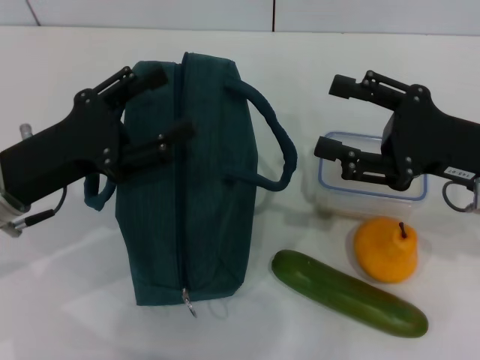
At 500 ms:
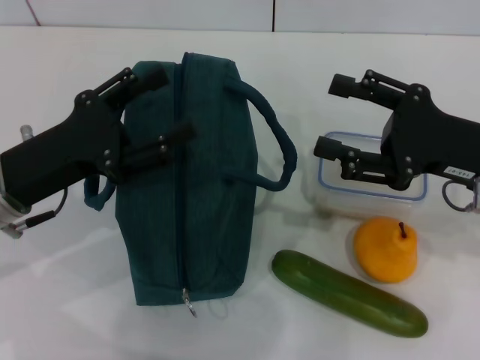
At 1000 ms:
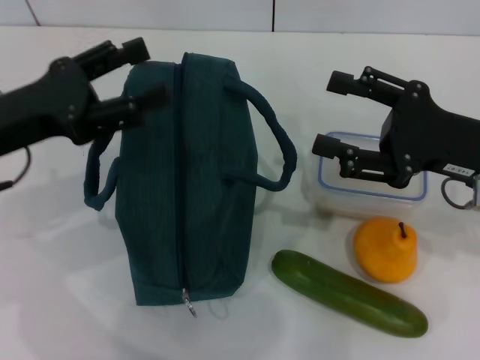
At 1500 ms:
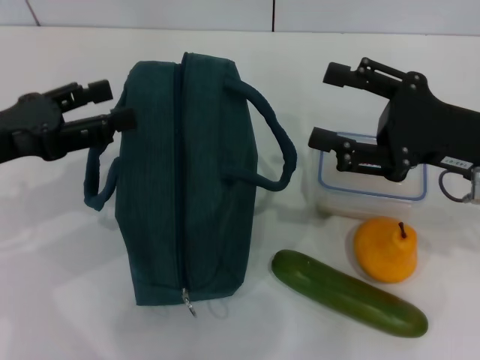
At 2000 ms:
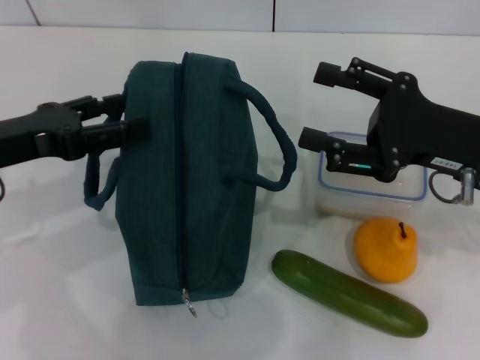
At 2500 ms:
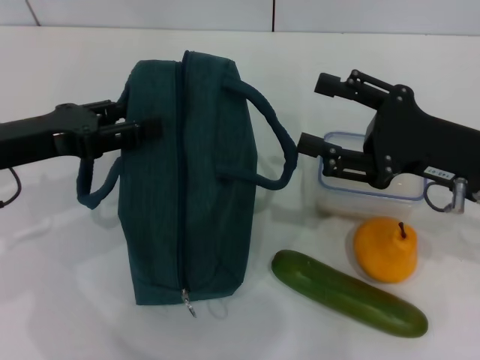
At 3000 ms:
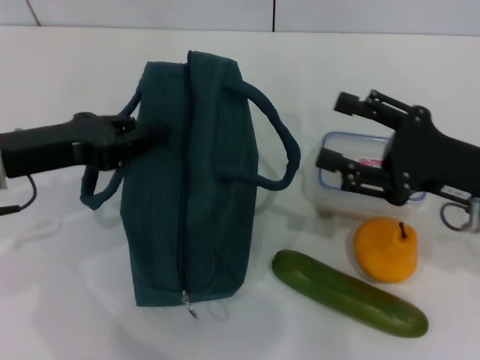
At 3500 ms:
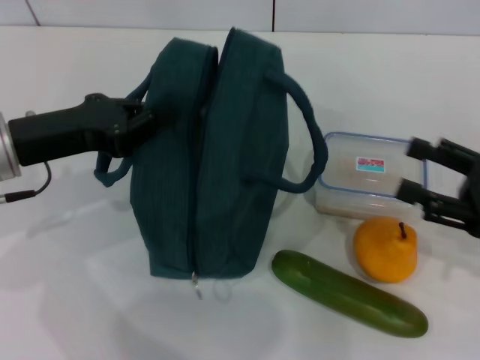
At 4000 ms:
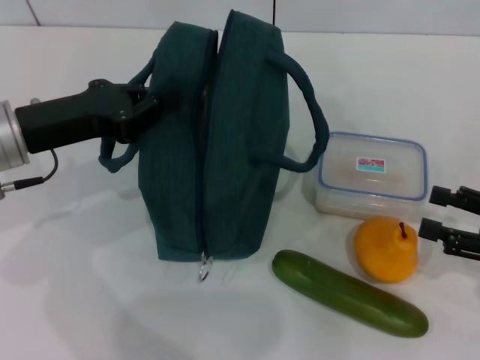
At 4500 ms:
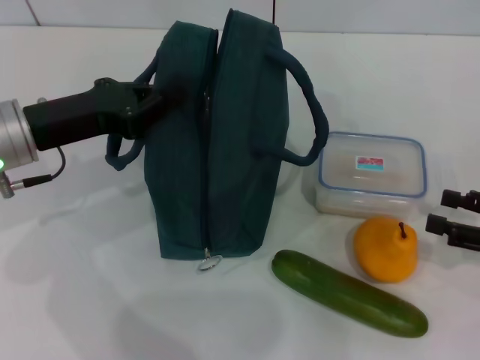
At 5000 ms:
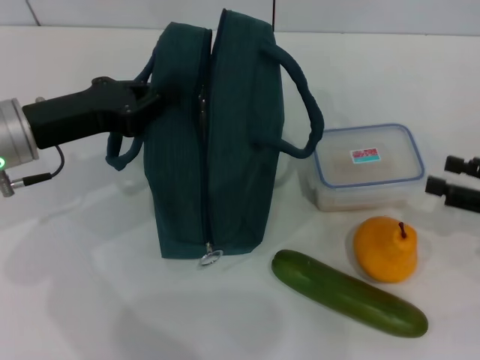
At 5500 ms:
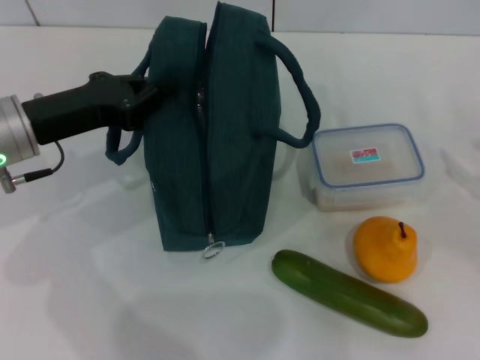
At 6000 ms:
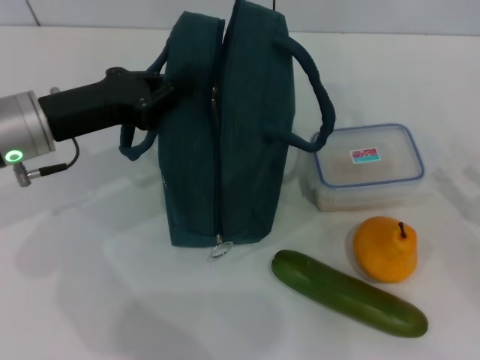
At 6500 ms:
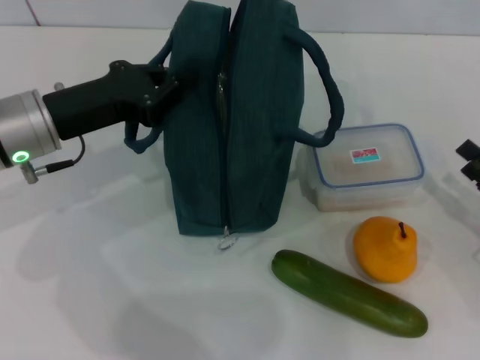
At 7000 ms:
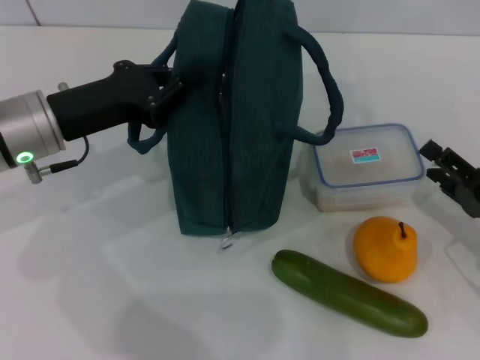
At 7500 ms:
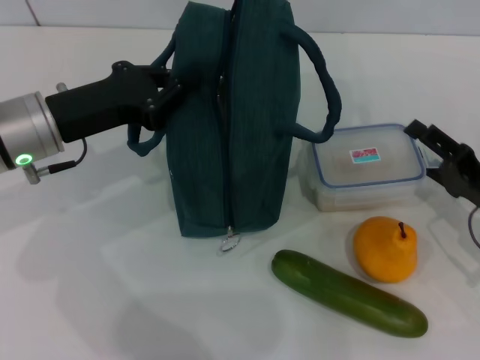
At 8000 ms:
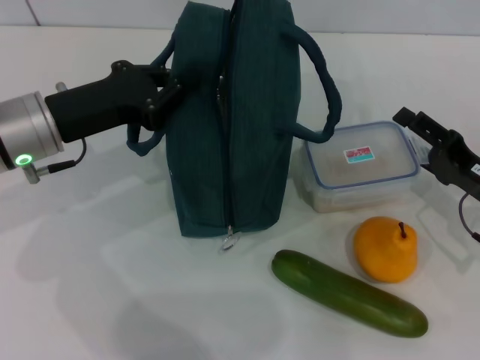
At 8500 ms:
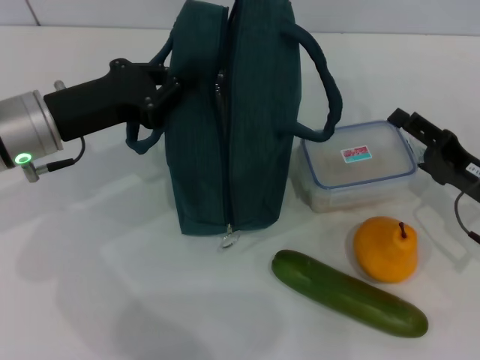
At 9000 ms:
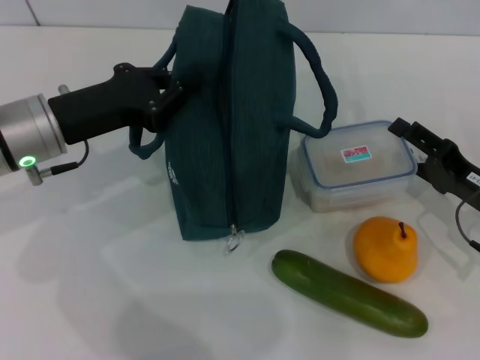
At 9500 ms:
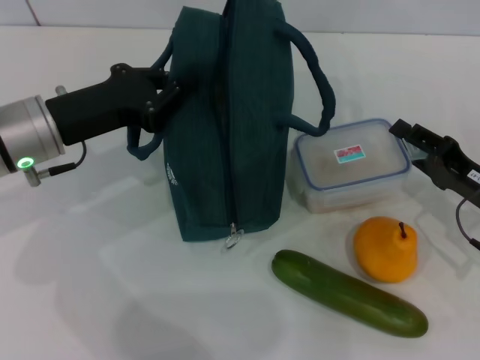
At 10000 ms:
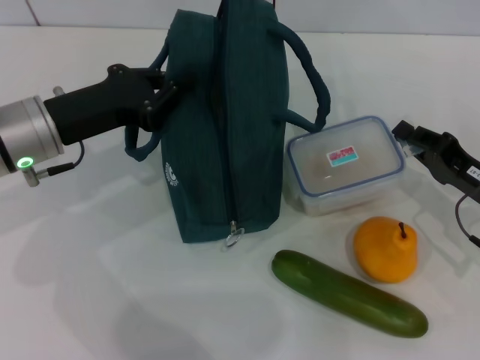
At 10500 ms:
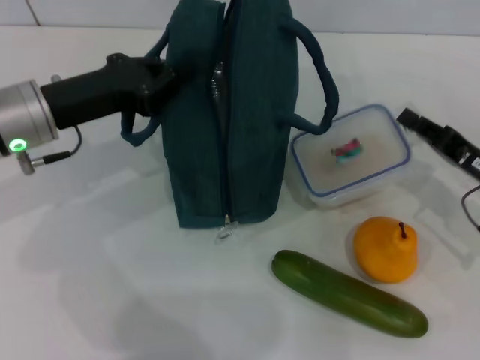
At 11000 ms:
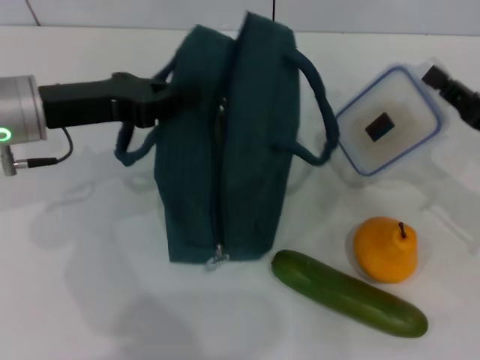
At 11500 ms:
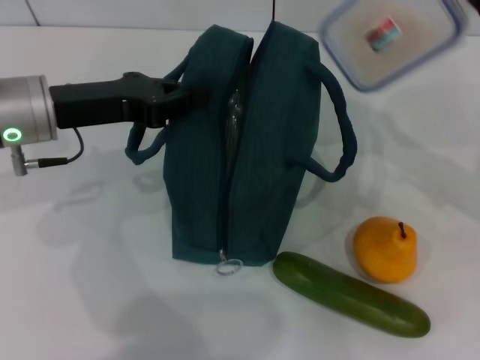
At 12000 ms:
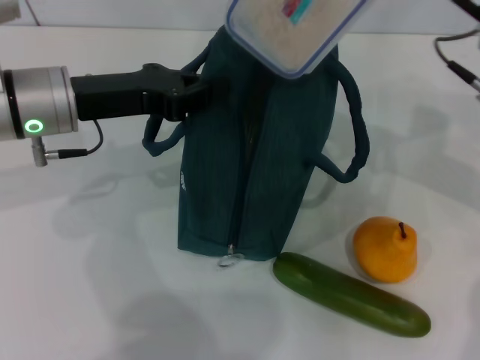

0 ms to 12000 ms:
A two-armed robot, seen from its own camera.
Step, 0 ms to 3000 ms: Hold the lunch bag with your left hand.
Step, 3500 ms to 10000 ms: Pick up the lunch box with your right hand.
0 ms to 2000 ms: The left gripper ends up approximately 5 cm from where it was.
2000 ms to 4000 ms: The right gripper goes some 15 cm to the right, downward and backward. Meanwhile the left gripper shifts by about 5 cm, and closes.
6000 ms to 8000 ms: The right gripper travels to the left and forward by roughly 10 cm.
8000 ms to 10000 ms: The right gripper closes up.
10000 ms to 12000 ms: The right gripper moves upward, forward and to the left, approximately 20 cm.

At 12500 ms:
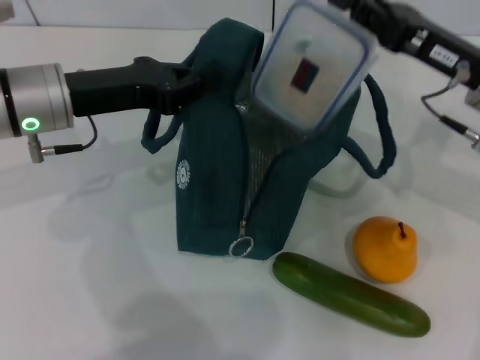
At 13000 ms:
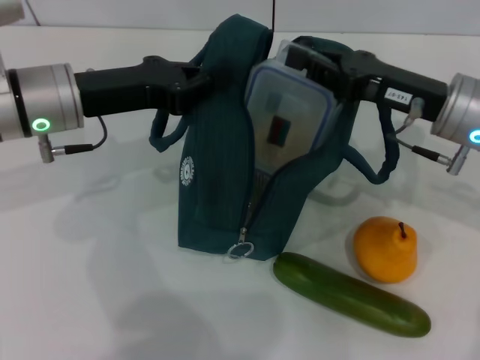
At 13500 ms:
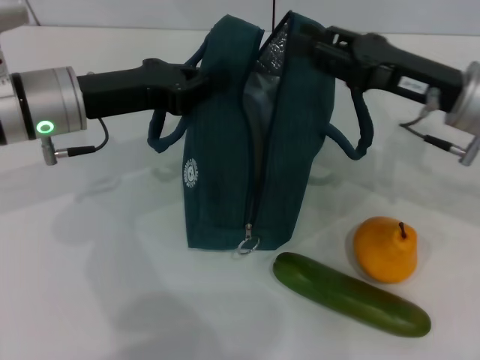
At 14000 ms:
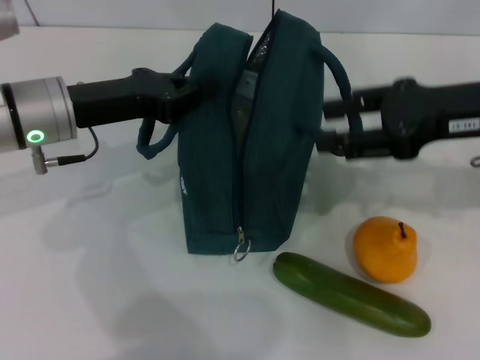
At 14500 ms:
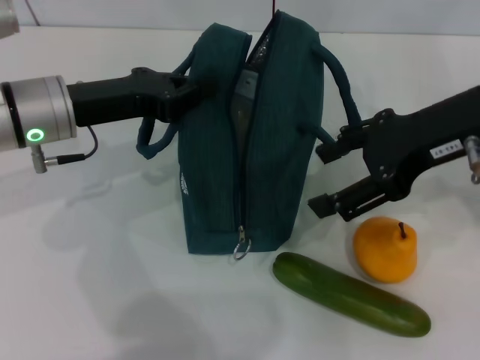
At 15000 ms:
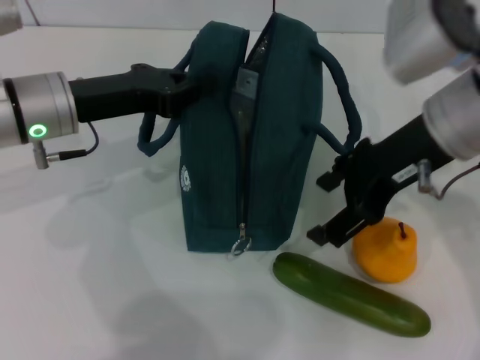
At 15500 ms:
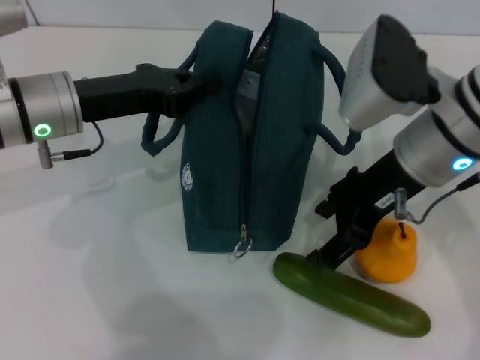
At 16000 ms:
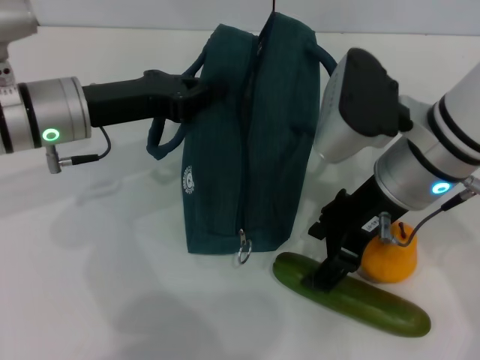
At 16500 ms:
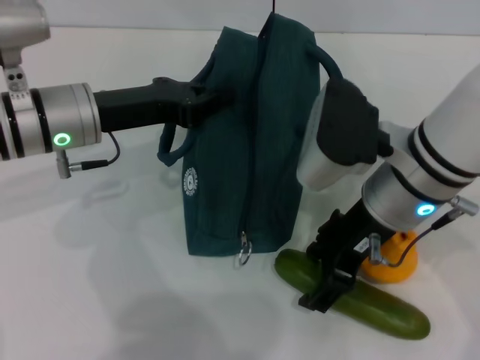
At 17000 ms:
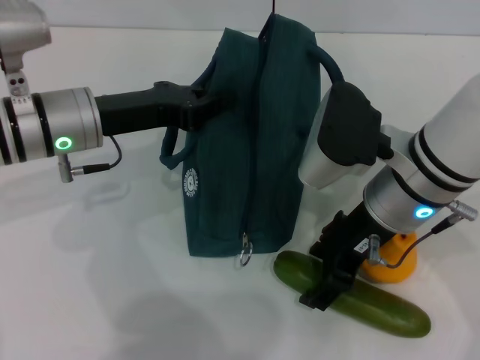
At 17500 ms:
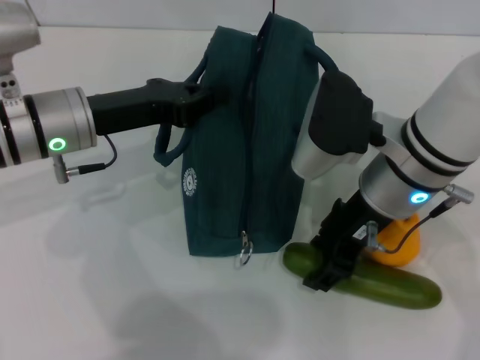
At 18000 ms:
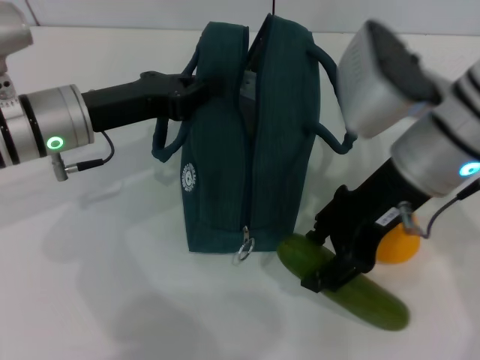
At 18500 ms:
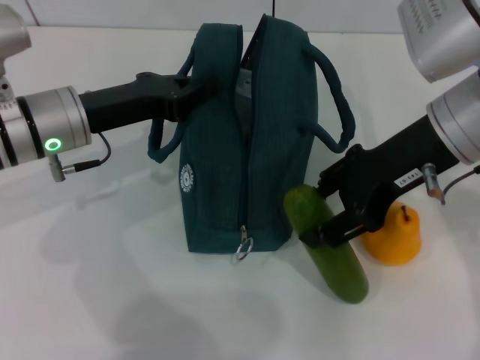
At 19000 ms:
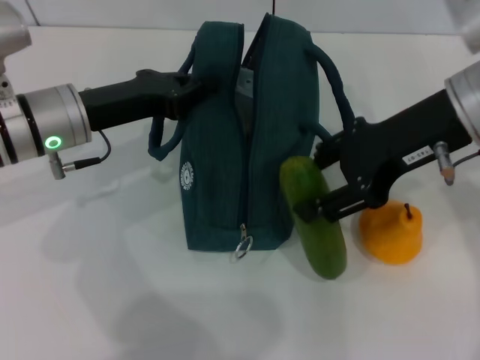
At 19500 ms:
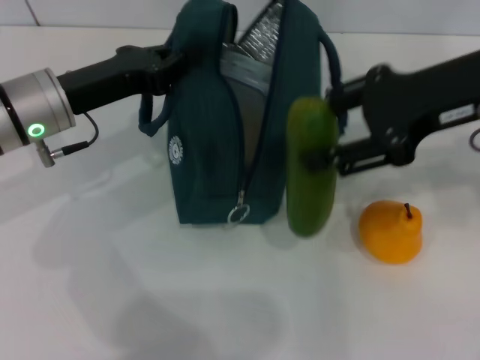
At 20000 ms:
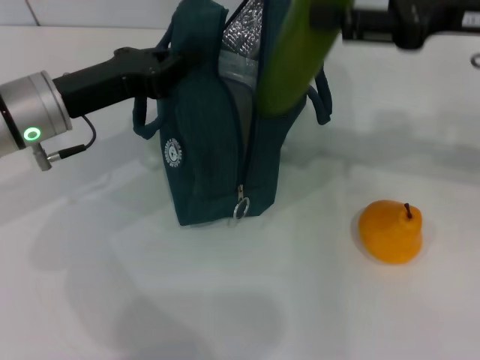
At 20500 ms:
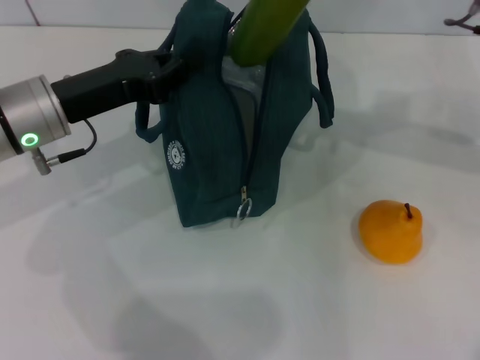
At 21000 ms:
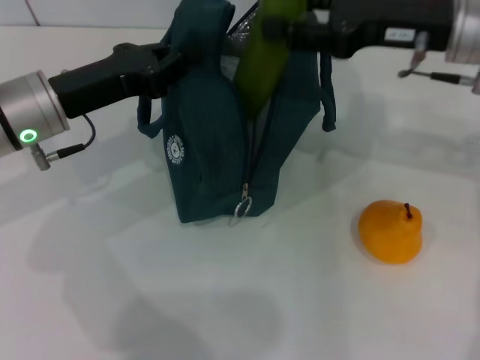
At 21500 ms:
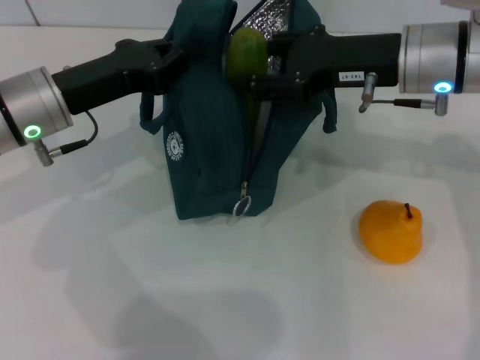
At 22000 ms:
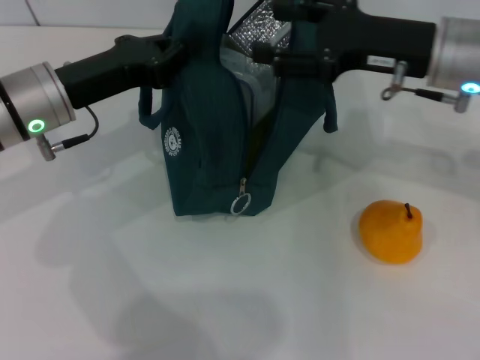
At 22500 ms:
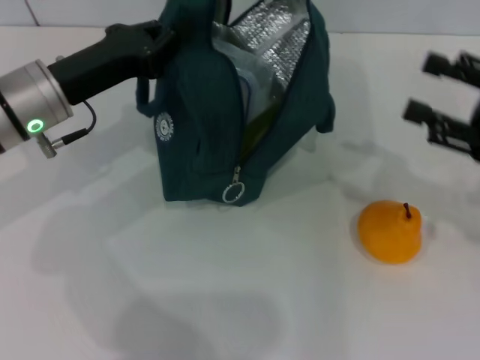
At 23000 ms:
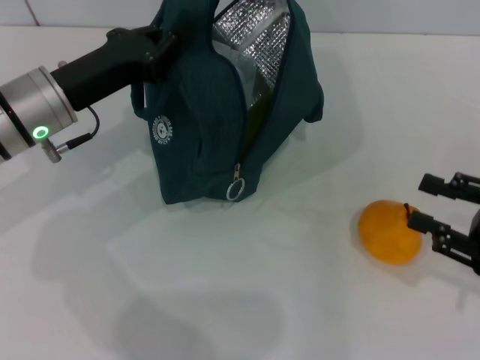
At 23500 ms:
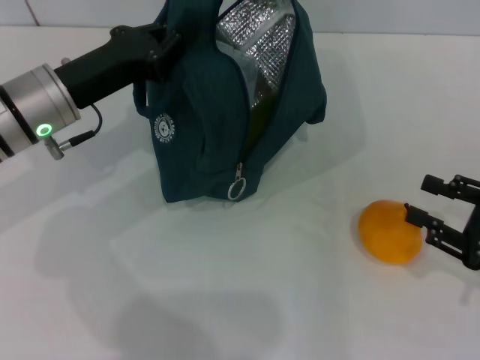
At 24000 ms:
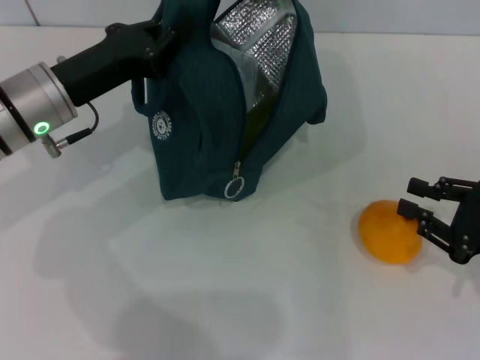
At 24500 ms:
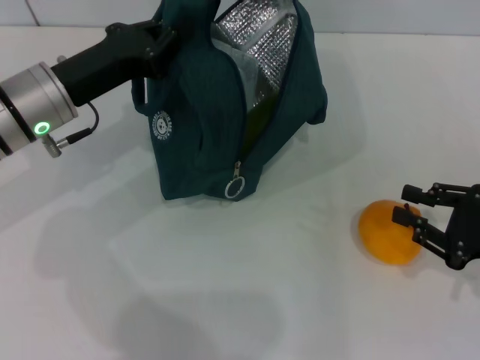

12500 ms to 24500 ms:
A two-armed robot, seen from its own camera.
Step, 13500 ms to 17000 ms: Pick up the cucumber with your right hand.
Step, 17500 ms to 21500 ms: Put the cucumber into the lunch bag with your right hand.
12500 ms to 14500 ms: The right gripper travels upward by roughly 10 cm, and opens its fingers.
14500 ms to 16500 ms: The right gripper is displaced to the left and downward by about 10 cm.
16500 ms to 18500 ms: The right gripper goes roughly 10 cm upward and to the right.
18500 ms to 20500 ms: The right gripper is displaced to the right by roughly 5 cm.
20500 ms to 22500 ms: The right gripper moves downward, to the right and backward, roughly 15 cm.
22500 ms to 24500 ms: The right gripper is displaced downward by roughly 10 cm, and closes.

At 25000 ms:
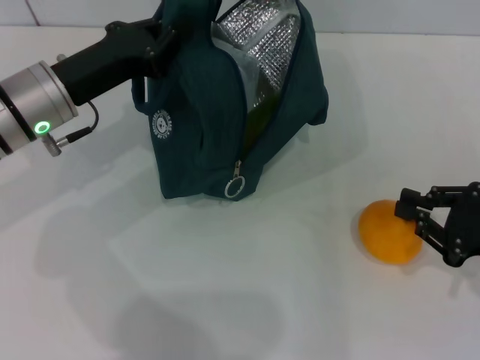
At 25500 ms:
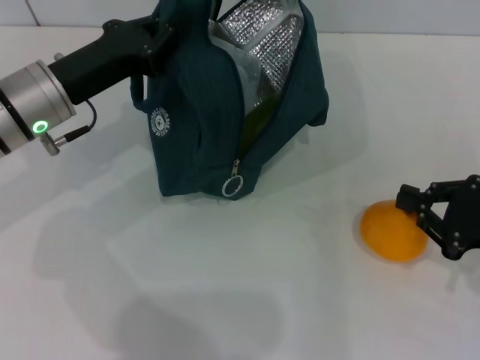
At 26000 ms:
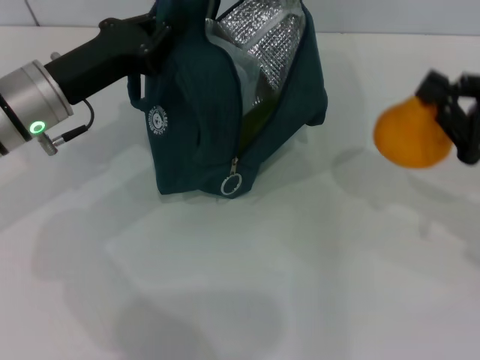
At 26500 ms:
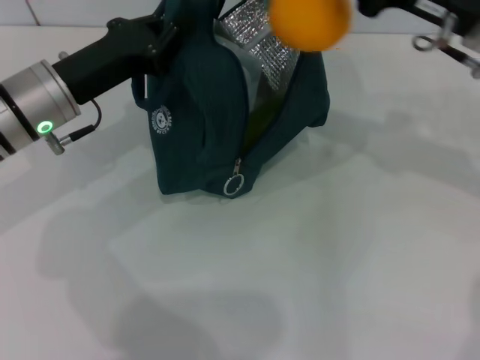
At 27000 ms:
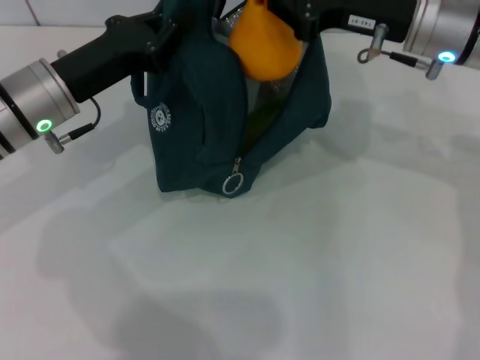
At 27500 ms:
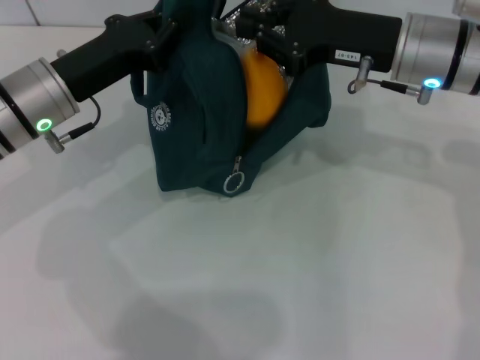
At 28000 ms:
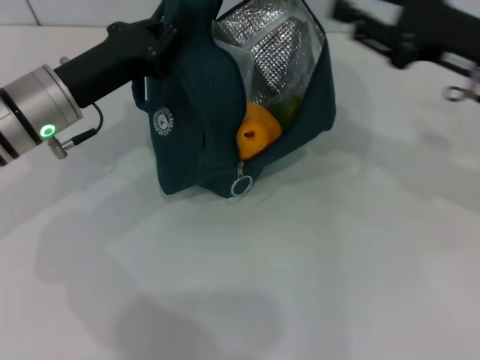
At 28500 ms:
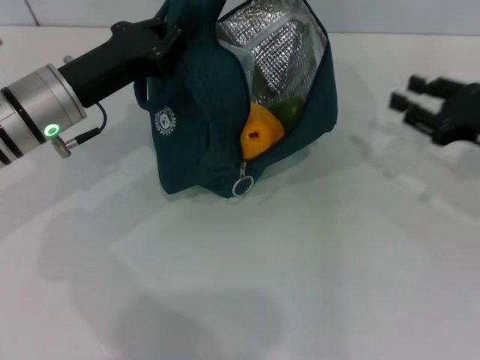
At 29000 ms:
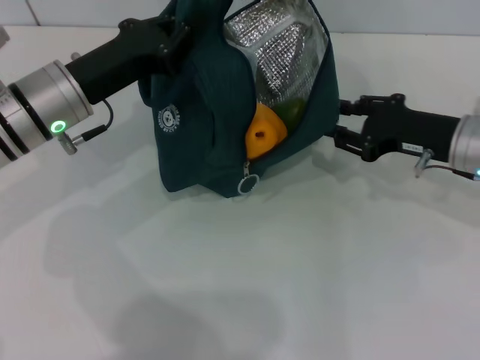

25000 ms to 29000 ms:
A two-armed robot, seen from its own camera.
25000 ms to 27000 ms: The right gripper shifts about 25 cm to the left, forward and upward.
27000 ms to 29000 ms: The right gripper is displaced downward and to the right by about 15 cm, and opens its fingers.
